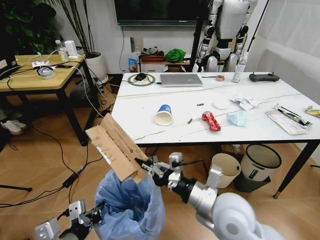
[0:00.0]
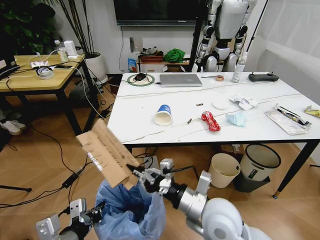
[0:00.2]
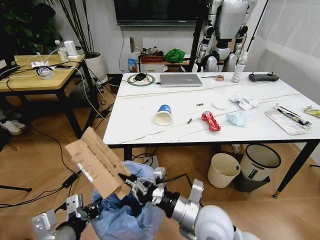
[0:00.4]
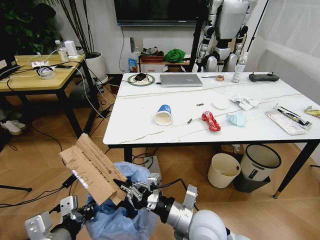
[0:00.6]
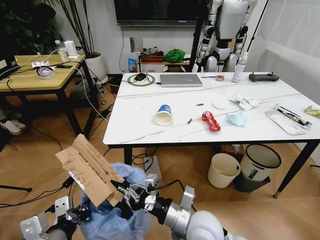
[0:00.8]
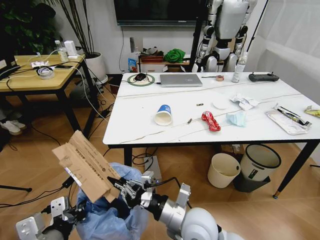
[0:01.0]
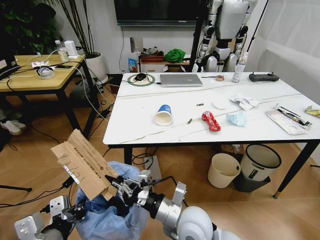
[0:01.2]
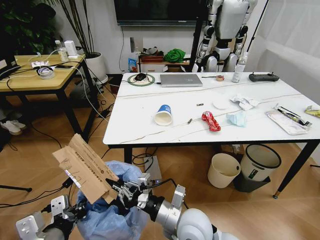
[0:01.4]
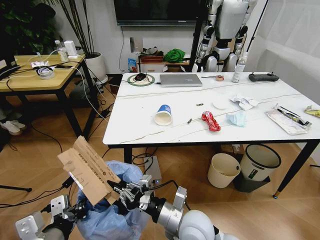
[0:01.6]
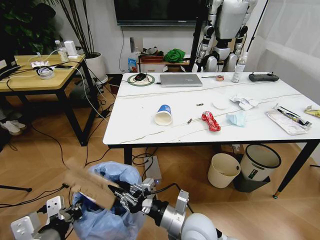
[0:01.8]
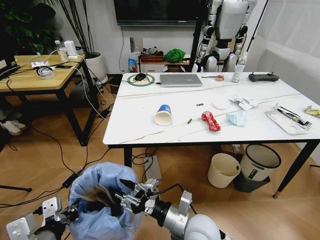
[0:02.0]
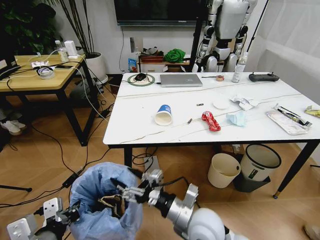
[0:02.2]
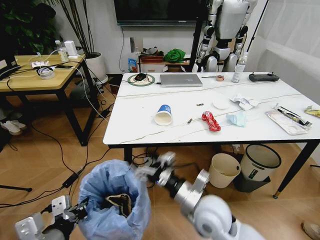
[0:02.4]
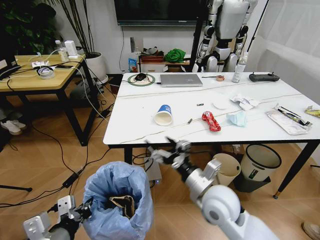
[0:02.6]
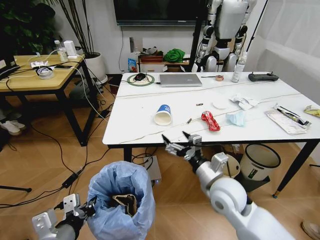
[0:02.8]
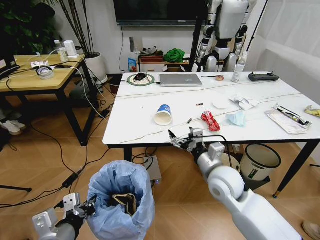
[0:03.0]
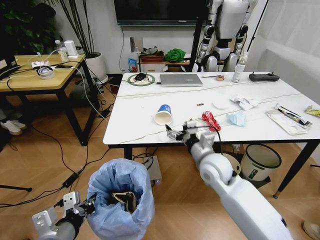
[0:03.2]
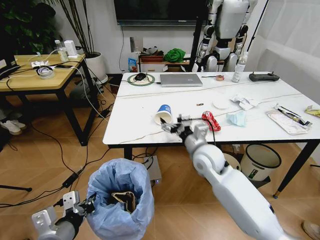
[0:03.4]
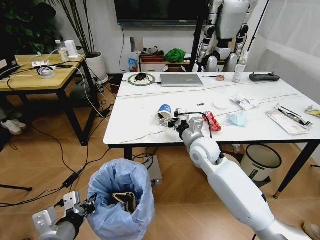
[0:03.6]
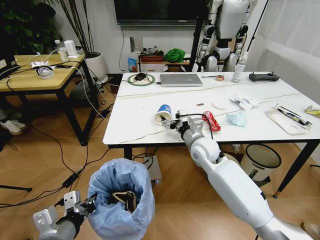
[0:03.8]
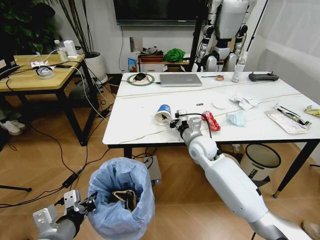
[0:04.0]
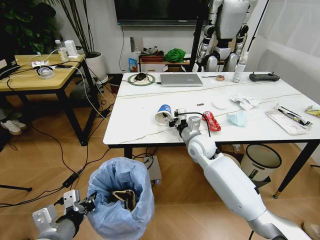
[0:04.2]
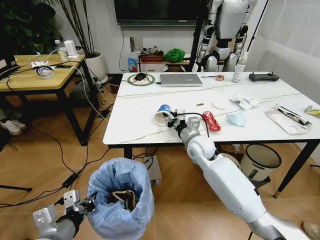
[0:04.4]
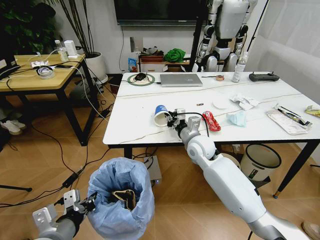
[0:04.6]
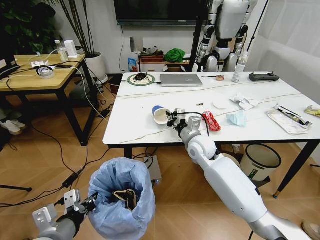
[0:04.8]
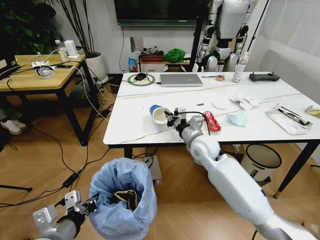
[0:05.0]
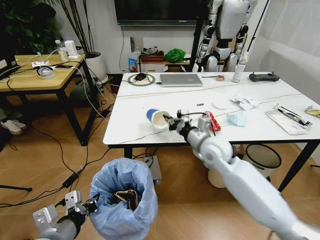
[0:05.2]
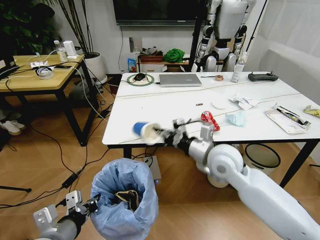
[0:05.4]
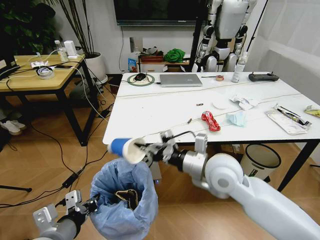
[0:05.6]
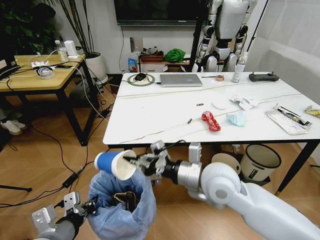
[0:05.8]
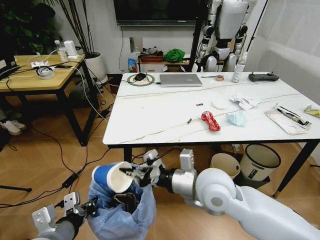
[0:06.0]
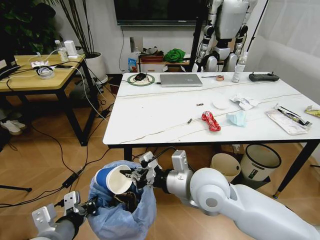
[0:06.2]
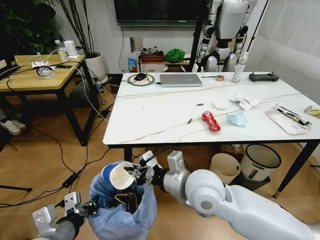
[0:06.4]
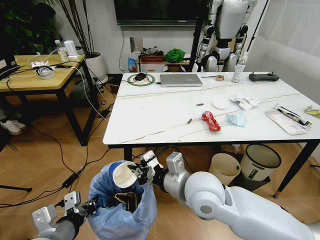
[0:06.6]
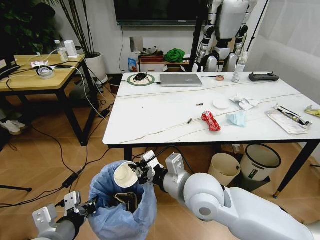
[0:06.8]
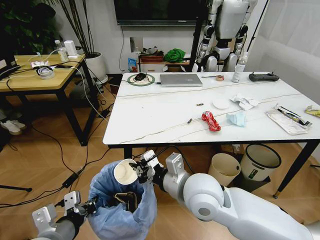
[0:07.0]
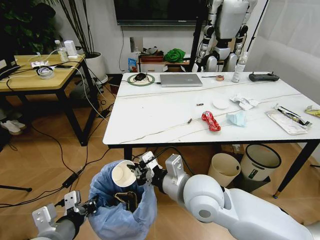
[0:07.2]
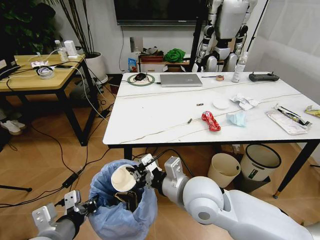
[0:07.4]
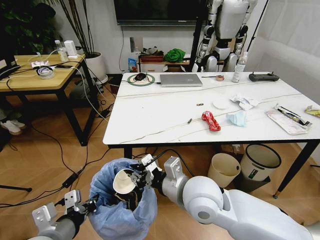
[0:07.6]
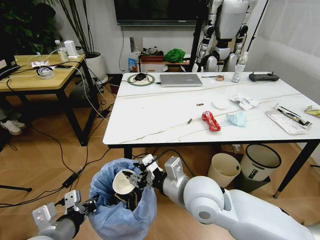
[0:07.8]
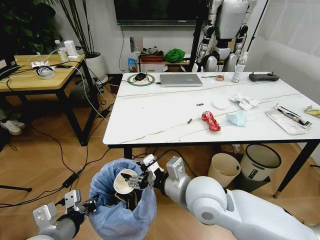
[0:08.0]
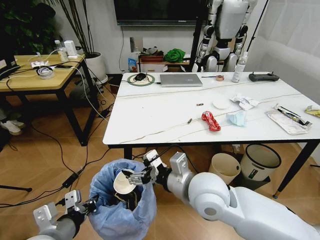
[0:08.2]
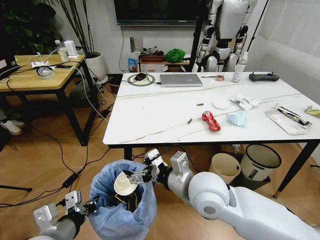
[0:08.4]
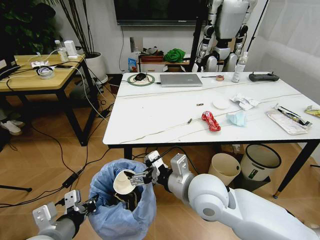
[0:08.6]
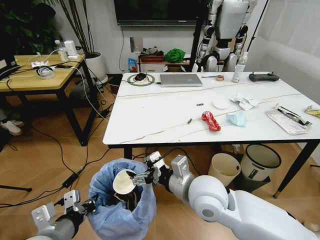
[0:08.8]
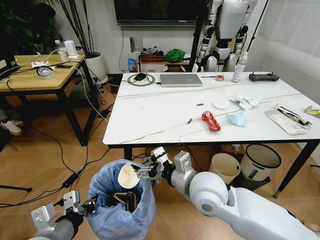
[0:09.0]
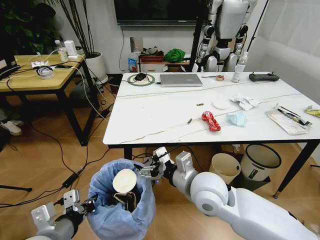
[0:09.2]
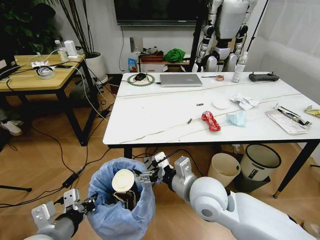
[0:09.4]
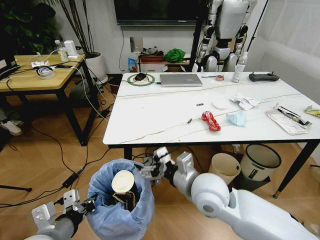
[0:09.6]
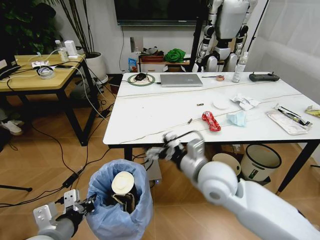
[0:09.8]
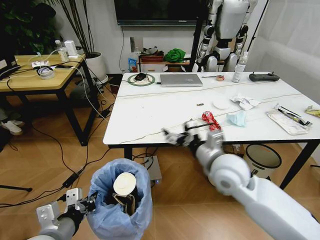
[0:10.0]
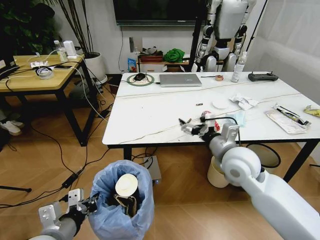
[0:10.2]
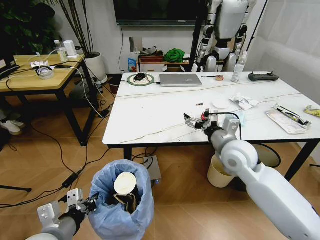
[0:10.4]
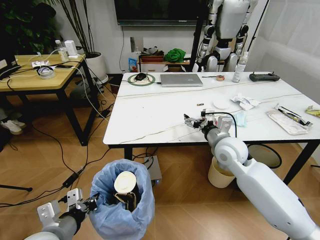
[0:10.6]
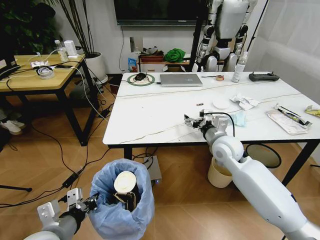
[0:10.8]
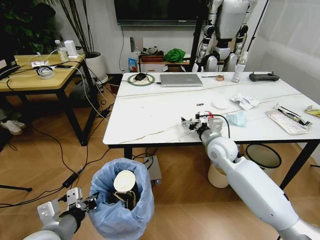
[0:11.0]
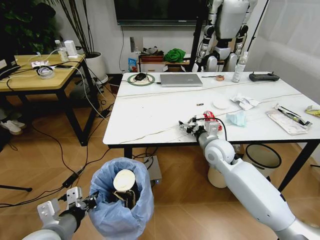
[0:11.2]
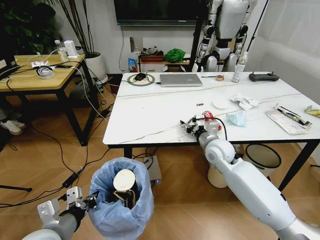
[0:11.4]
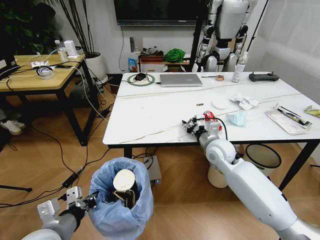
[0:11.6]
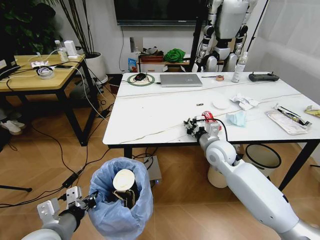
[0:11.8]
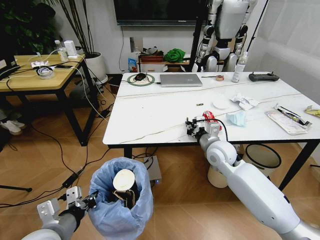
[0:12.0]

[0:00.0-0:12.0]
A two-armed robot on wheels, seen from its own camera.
Task of the whole recording: Pick up the trash bin and place the trash from the table into it.
0:00.0 to 0:01.6: The right gripper is displaced downward and to the left by approximately 10 cm.
0:01.6 to 0:03.0: The right gripper heads forward, to the right and upward, covering some 15 cm, and opens.
0:03.0 to 0:04.4: The right gripper goes some 15 cm forward, and closes up.
0:04.4 to 0:06.0: The right gripper shifts approximately 20 cm backward, and closes its fingers.
0:07.6 to 0:09.0: The right gripper opens.
0:09.0 to 0:10.4: The right gripper travels to the right and forward by some 15 cm.
0:10.4 to 0:12.0: The right gripper moves downward and forward, roughly 10 cm, and closes its fingers.

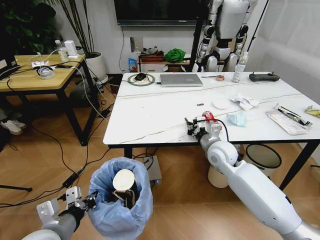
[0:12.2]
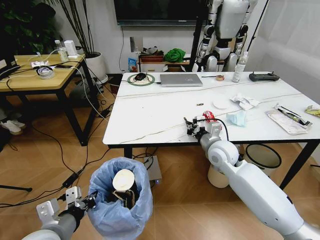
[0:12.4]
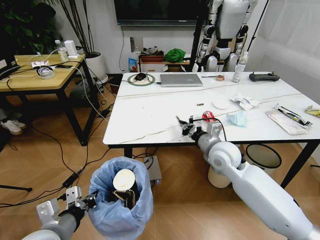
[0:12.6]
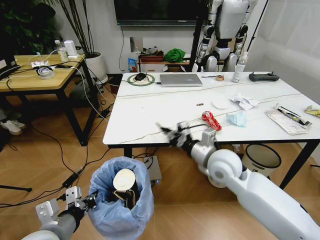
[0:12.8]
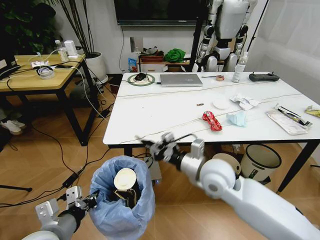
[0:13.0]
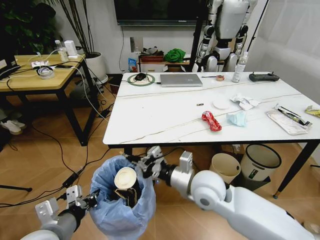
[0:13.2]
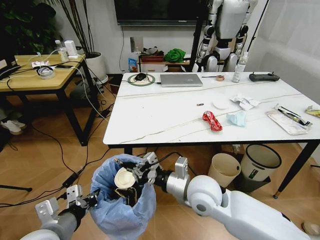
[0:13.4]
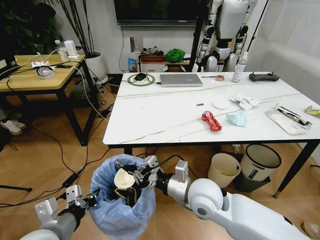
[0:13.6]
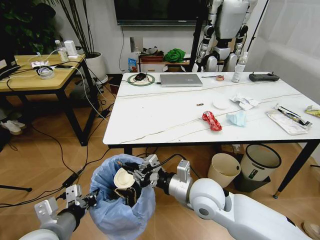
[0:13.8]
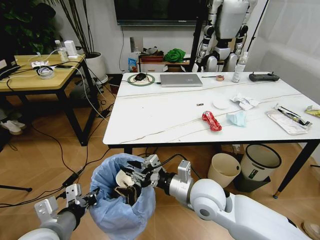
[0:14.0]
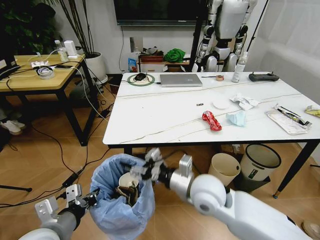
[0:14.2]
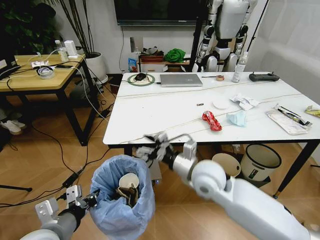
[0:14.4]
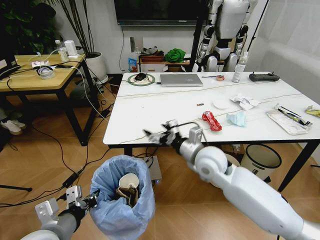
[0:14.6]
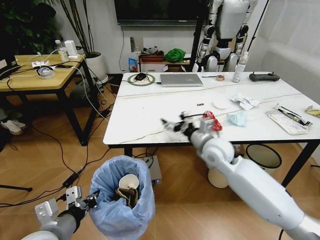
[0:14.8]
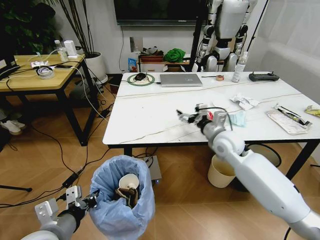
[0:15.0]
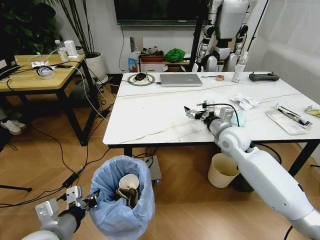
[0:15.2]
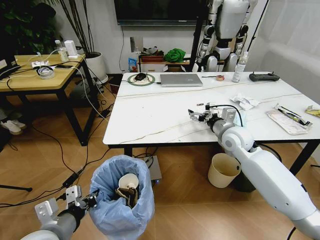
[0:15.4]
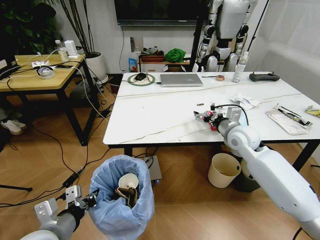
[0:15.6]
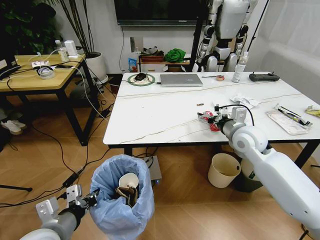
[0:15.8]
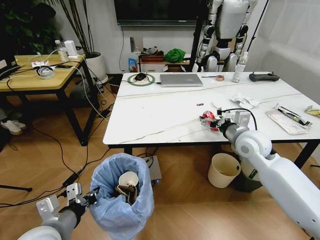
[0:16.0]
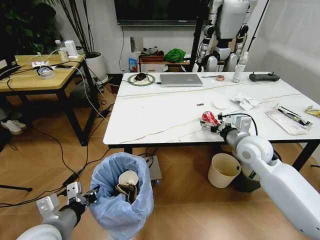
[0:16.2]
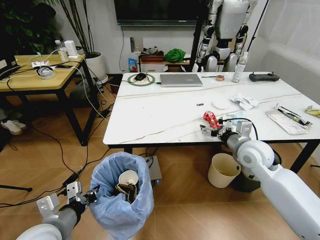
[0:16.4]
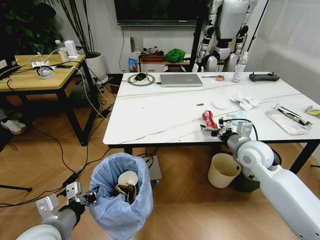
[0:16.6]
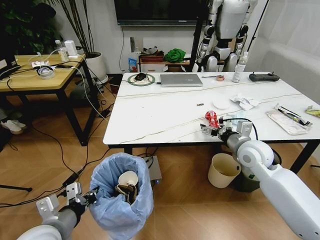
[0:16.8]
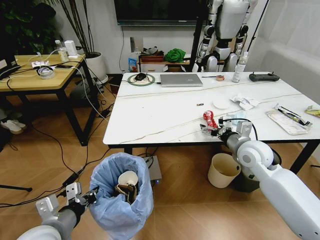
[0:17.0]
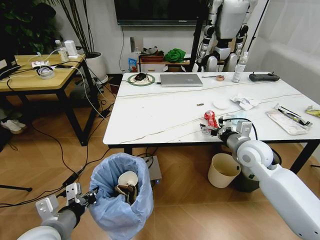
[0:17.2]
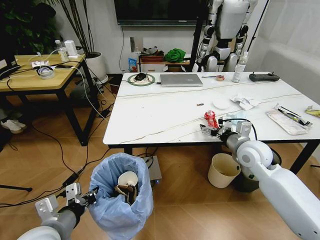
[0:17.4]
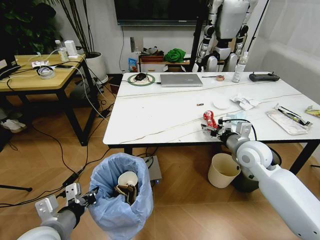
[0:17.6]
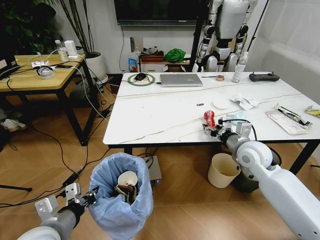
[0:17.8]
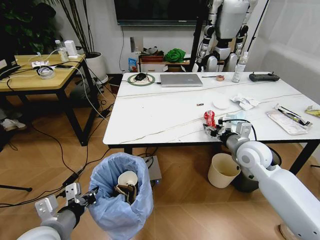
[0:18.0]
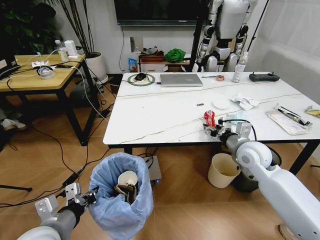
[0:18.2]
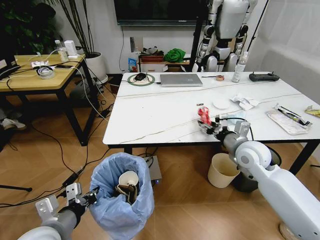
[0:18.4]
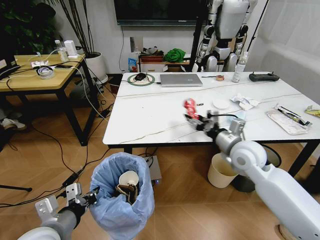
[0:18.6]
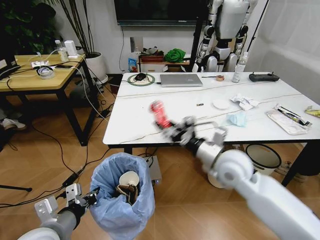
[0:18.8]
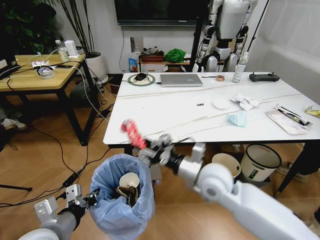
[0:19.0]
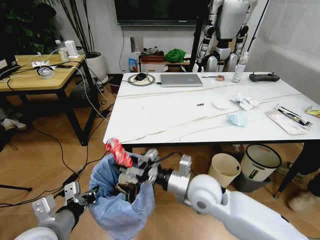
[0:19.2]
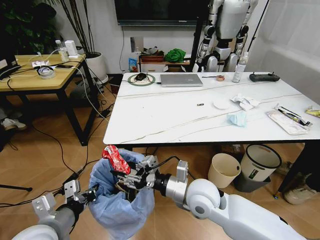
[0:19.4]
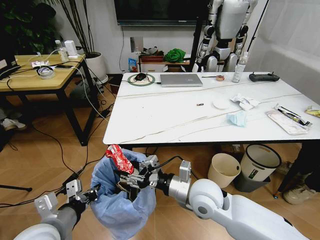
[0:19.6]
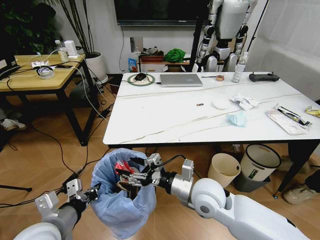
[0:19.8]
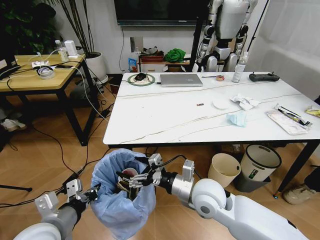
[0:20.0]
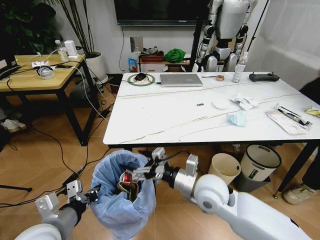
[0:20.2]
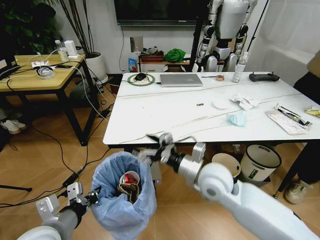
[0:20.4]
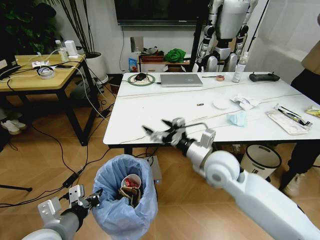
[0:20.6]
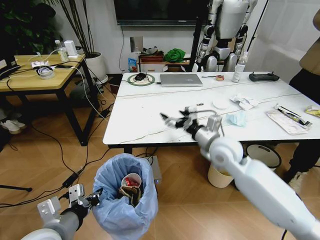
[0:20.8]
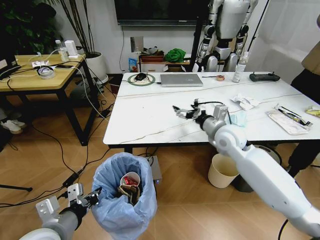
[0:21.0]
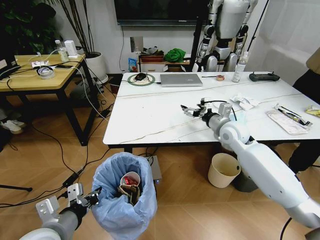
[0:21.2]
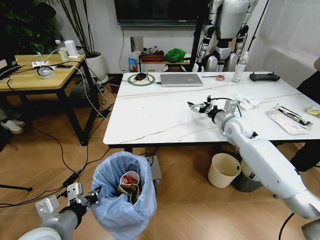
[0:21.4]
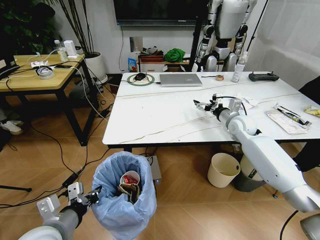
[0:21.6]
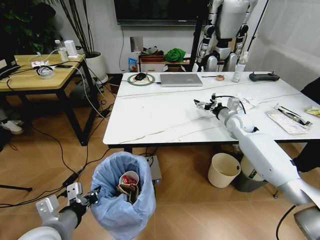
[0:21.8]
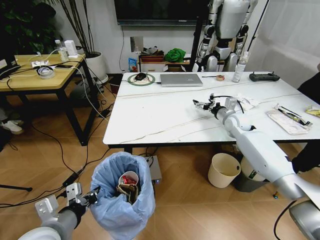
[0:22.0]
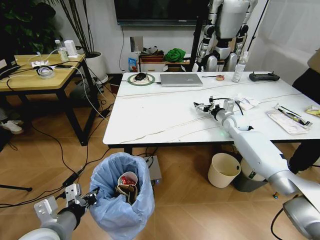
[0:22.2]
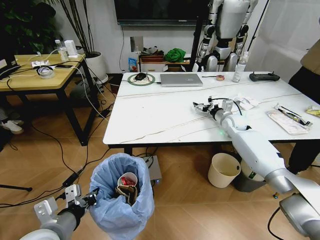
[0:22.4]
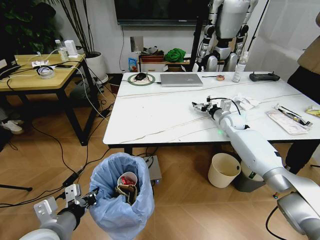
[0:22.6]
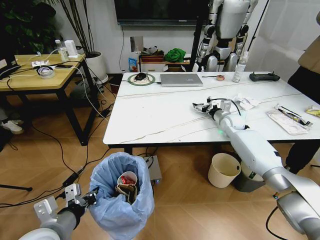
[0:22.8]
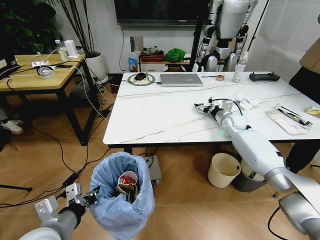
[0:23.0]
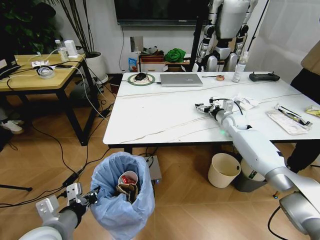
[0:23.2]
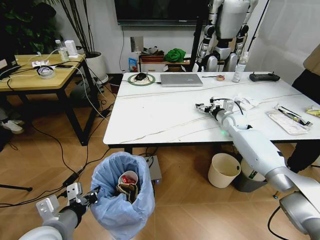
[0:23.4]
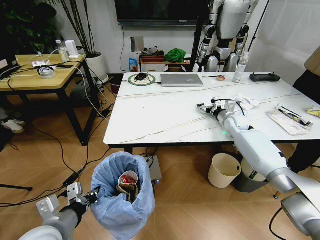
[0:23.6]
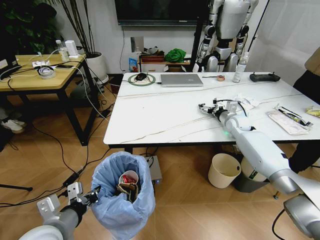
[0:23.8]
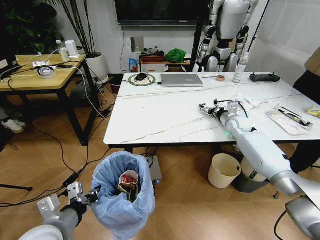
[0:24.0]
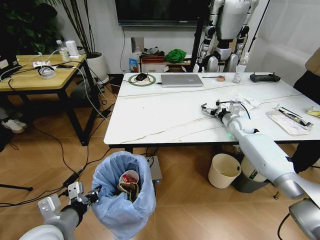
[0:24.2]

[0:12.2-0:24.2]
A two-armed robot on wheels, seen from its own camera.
Task of the whole recording: Pick up the trash bin and place the trash from the table into it.
0:12.2 to 0:13.8: The right gripper moves backward and to the left, some 15 cm.
0:13.8 to 0:15.2: The right gripper goes roughly 20 cm forward and to the right, and opens.
0:15.2 to 0:16.6: The right gripper heads backward, covering some 5 cm.
0:16.6 to 0:18.2: The right gripper closes its fingers.
0:18.2 to 0:19.8: The right gripper heads to the left and backward, covering about 20 cm.
0:19.8 to 0:21.2: The right gripper travels forward and to the right by approximately 25 cm.
0:21.2 to 0:22.6: The right gripper moves forward, downward and to the right, some 15 cm.
0:22.6 to 0:24.2: The grippers stay close to where they were, moving slightly.
